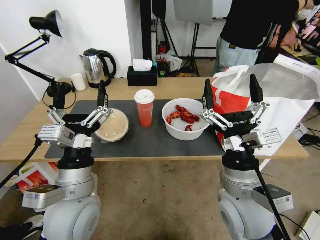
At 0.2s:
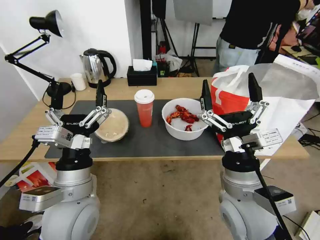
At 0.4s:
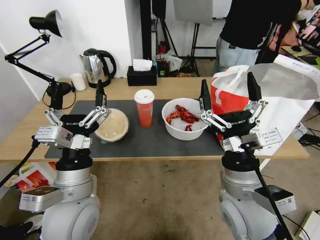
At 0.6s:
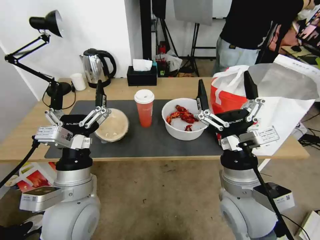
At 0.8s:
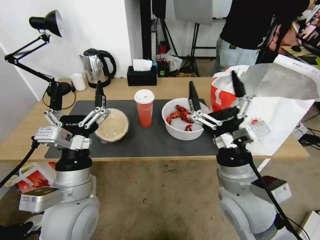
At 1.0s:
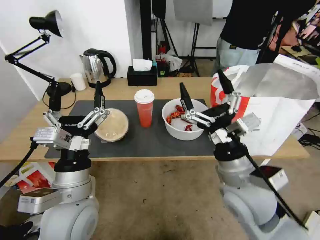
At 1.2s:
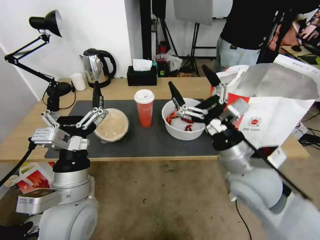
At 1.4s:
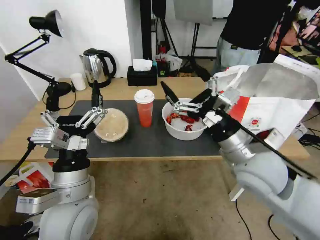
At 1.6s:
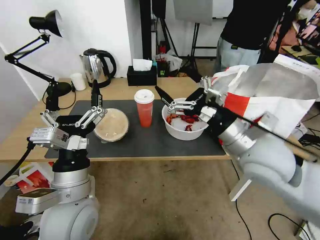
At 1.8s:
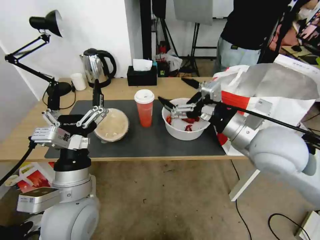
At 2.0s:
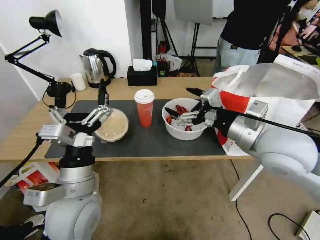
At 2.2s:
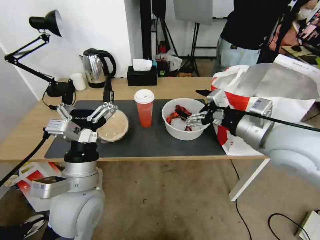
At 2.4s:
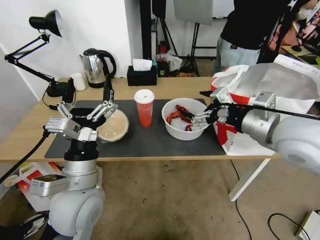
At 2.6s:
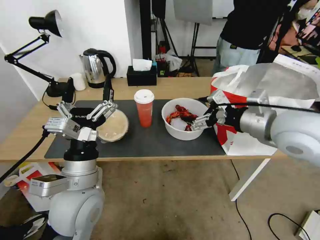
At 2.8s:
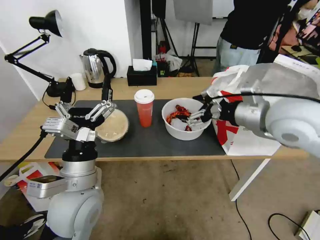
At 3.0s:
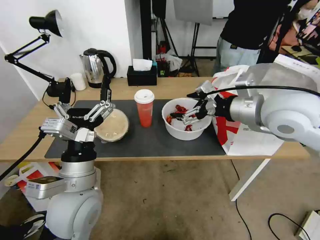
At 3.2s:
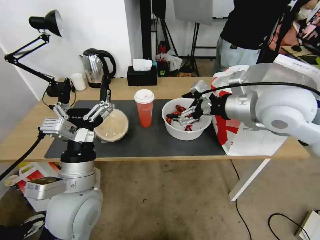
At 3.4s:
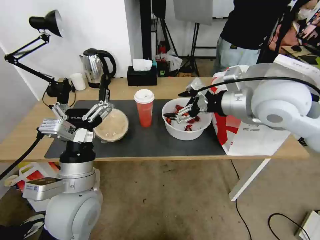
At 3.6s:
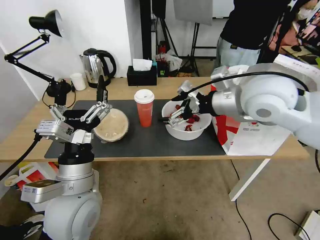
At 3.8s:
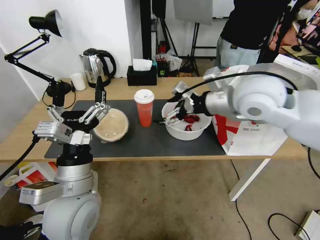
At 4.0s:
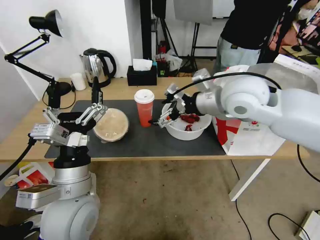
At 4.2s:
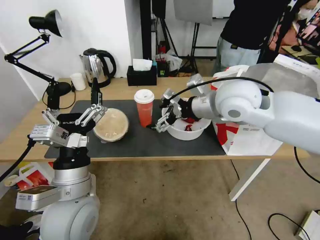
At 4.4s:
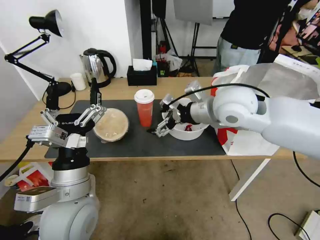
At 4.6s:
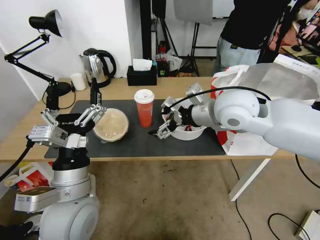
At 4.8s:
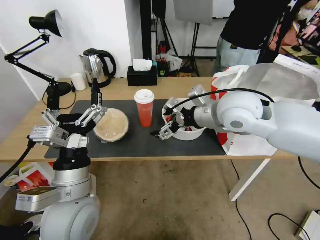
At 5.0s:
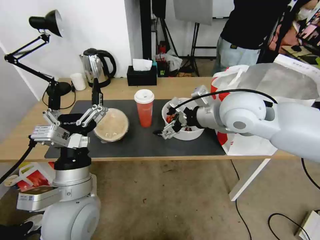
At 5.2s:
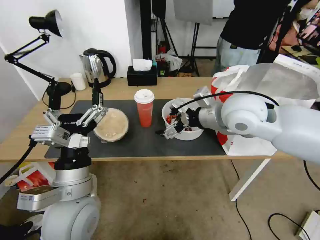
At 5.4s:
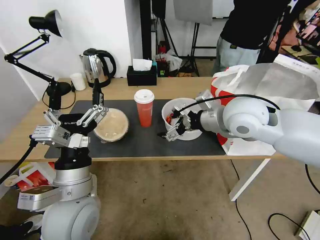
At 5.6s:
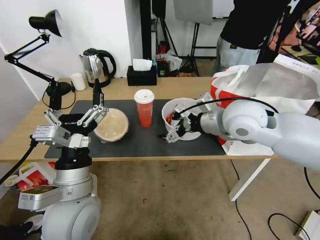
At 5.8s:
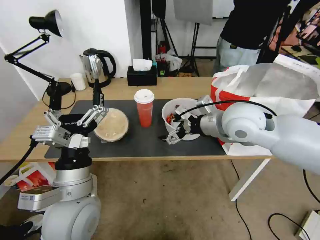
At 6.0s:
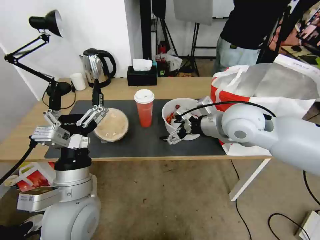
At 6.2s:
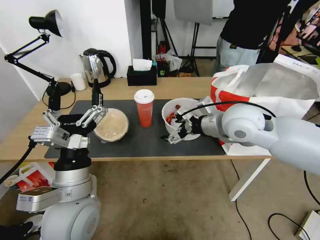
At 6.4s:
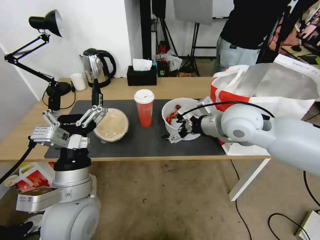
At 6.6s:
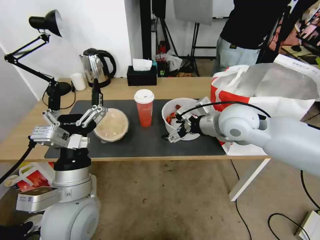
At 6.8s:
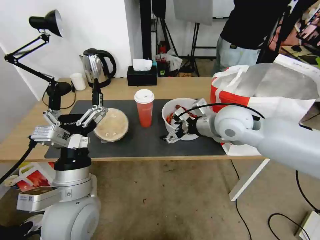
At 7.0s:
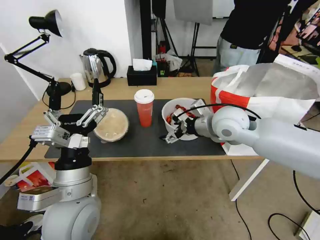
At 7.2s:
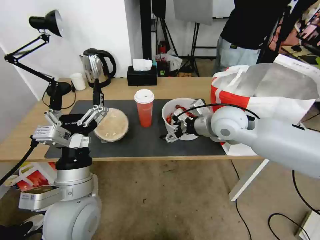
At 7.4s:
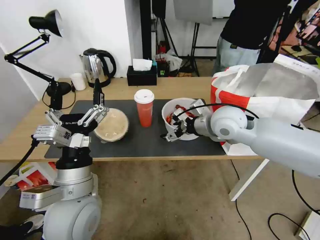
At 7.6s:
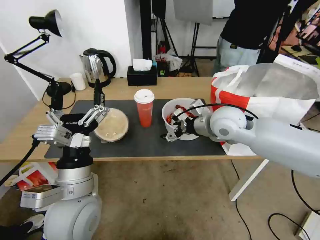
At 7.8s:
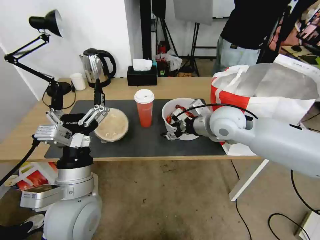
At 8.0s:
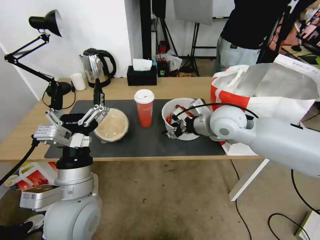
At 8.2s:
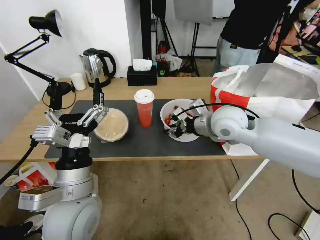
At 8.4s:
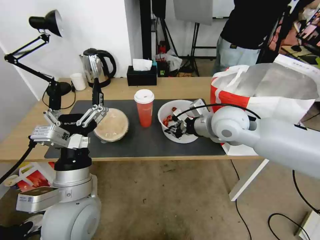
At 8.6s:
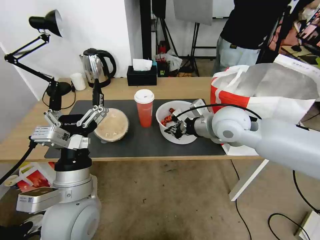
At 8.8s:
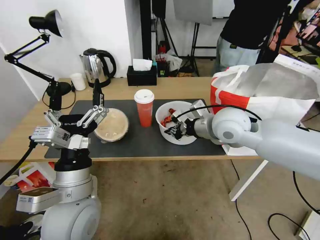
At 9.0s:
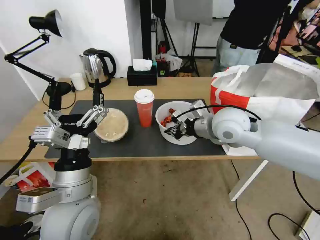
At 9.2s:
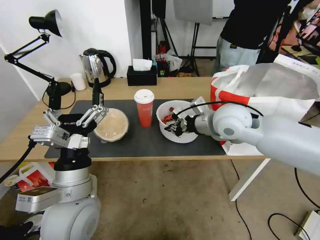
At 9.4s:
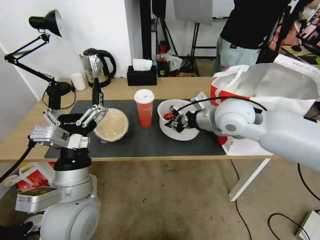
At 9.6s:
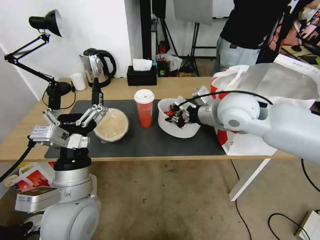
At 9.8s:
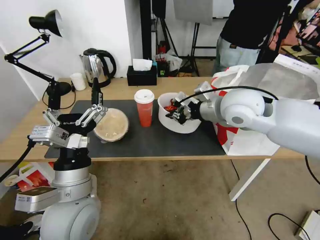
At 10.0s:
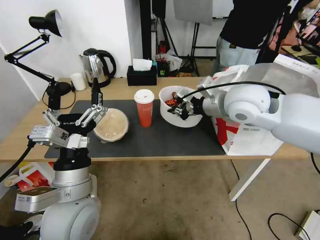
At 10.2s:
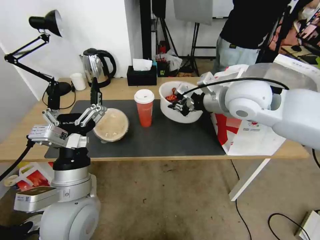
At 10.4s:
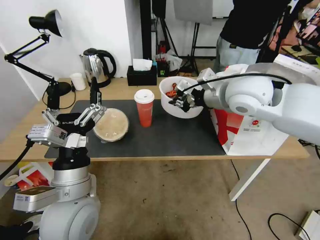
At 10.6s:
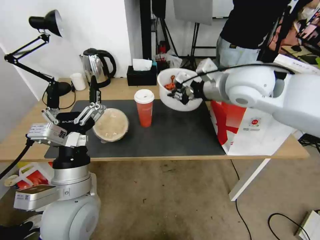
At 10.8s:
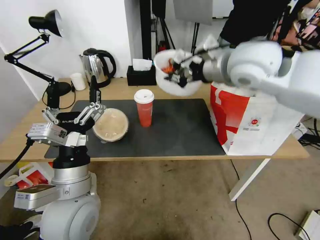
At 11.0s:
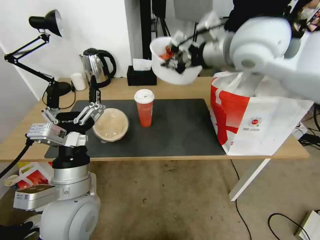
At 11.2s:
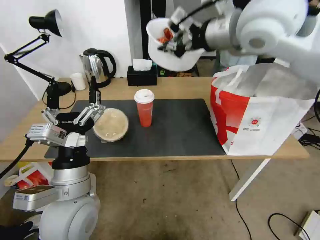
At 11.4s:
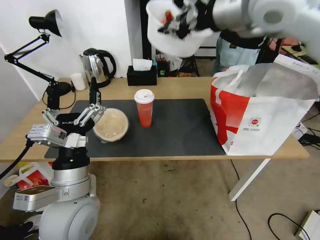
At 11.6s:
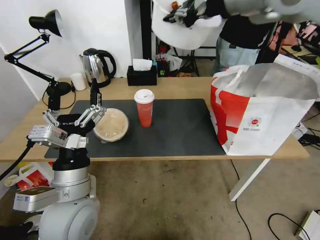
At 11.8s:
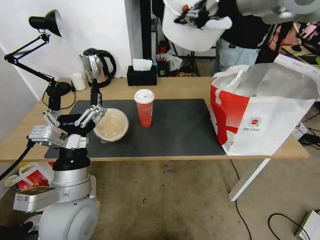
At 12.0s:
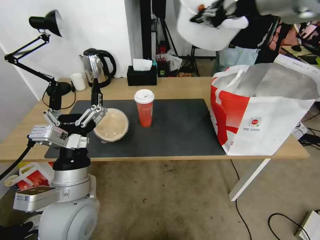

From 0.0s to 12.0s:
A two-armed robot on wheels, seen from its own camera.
Task of the whole recording: Pick up the trash from the table and place it into the takeout bag.
From 1.6s to 3.0s: The right gripper heads upward and forward, covering roughly 10 cm.
From 3.0s to 4.4s: The right gripper goes some 10 cm to the left and forward.
From 4.4s to 6.0s: The right gripper moves approximately 5 cm.
From 6.0s to 7.6s: The right gripper ends up some 5 cm from where it was.
From 7.6s to 9.0s: The right gripper closes its fingers.
From 9.0s to 10.4s: The right gripper shifts approximately 10 cm upward.
From 10.4s to 12.0s: The right gripper goes roughly 20 cm upward.

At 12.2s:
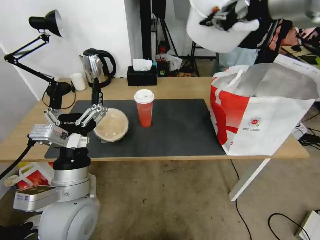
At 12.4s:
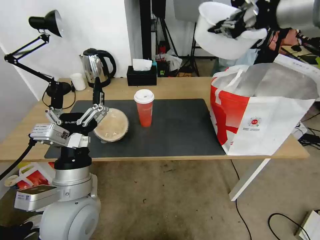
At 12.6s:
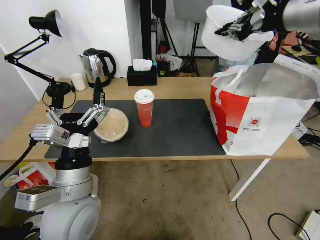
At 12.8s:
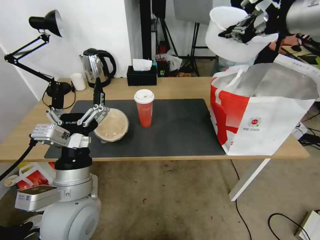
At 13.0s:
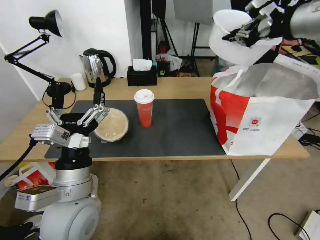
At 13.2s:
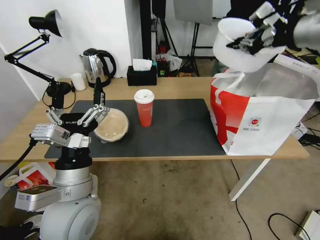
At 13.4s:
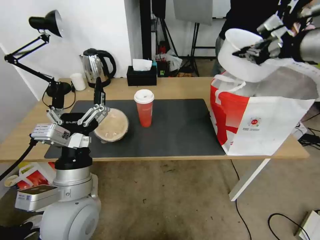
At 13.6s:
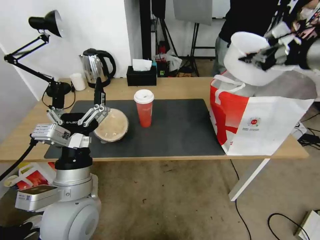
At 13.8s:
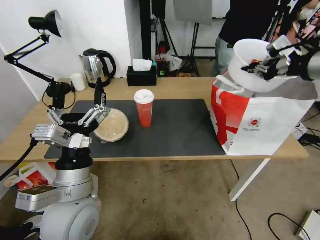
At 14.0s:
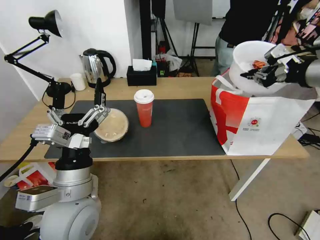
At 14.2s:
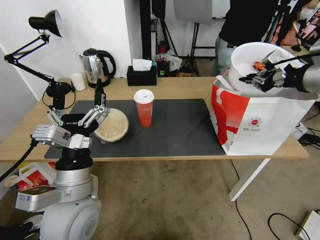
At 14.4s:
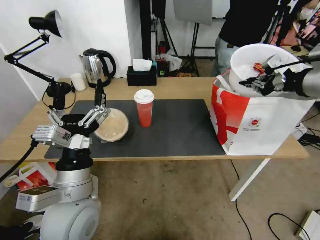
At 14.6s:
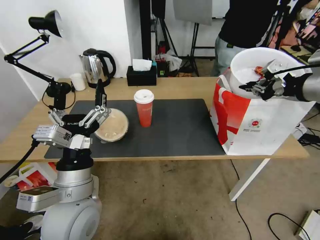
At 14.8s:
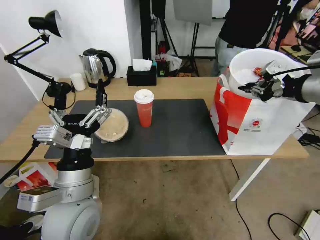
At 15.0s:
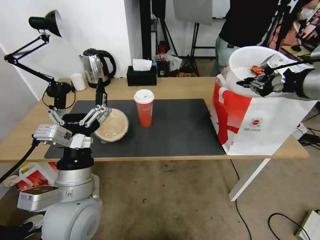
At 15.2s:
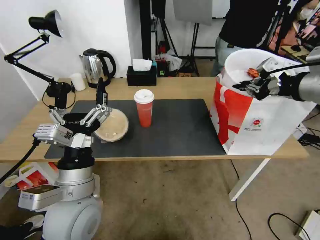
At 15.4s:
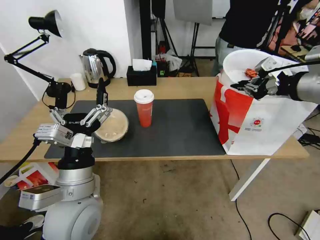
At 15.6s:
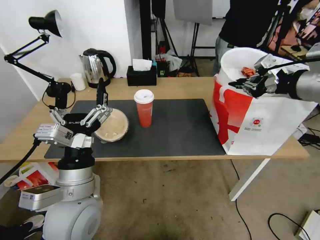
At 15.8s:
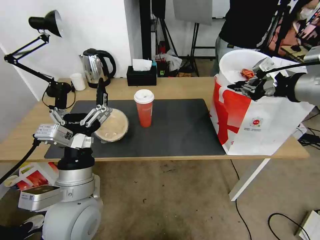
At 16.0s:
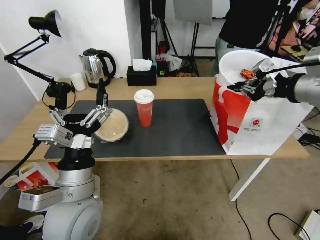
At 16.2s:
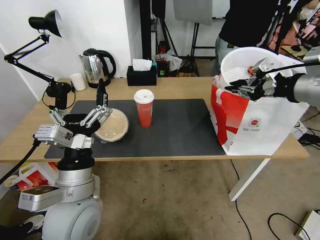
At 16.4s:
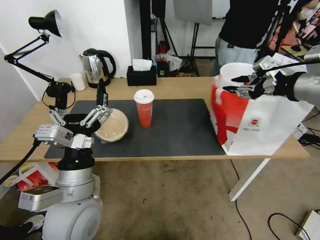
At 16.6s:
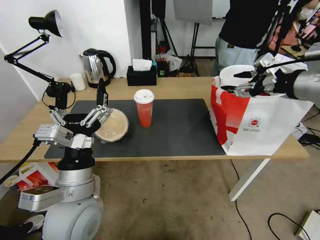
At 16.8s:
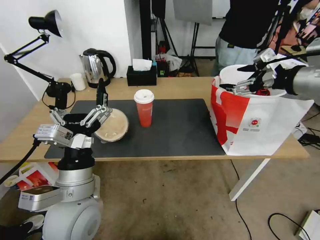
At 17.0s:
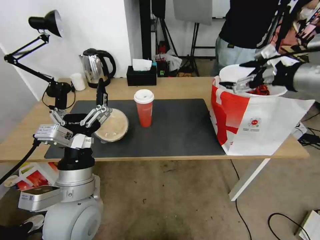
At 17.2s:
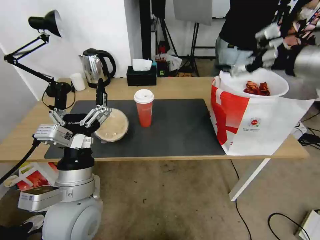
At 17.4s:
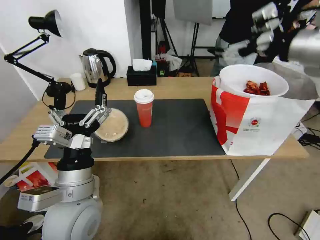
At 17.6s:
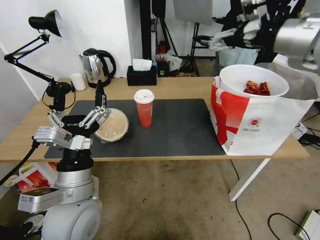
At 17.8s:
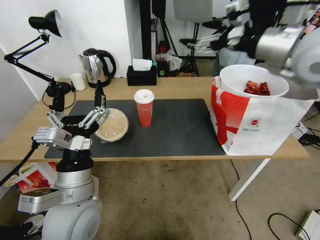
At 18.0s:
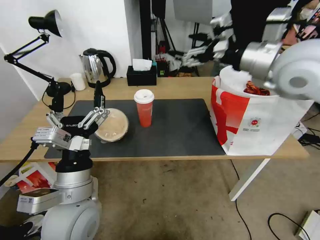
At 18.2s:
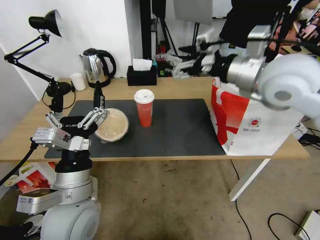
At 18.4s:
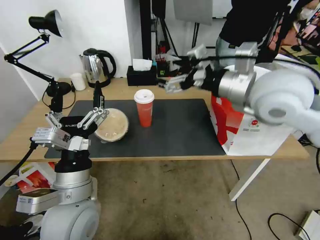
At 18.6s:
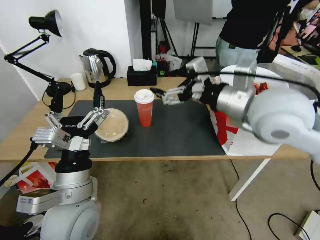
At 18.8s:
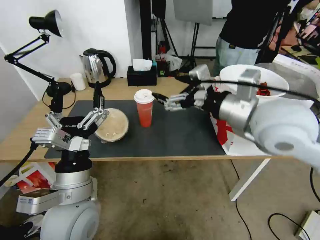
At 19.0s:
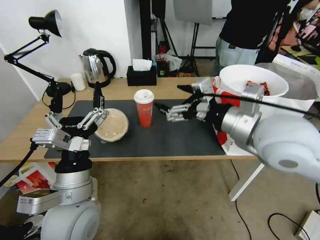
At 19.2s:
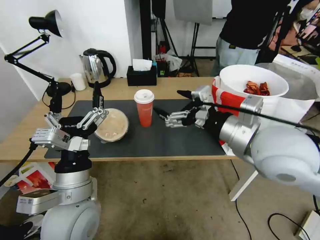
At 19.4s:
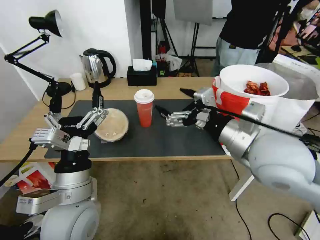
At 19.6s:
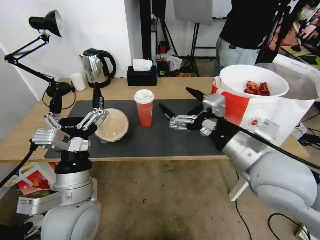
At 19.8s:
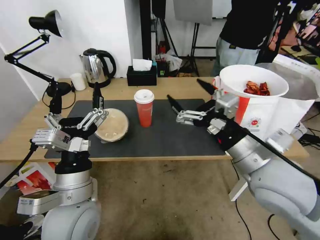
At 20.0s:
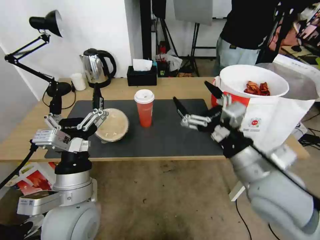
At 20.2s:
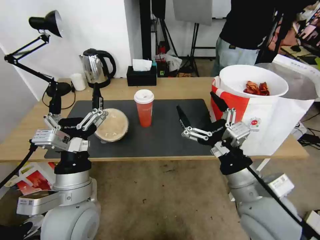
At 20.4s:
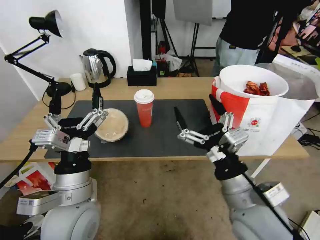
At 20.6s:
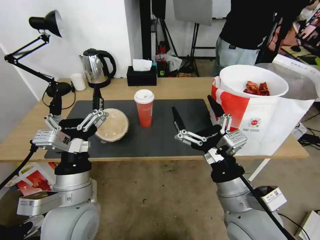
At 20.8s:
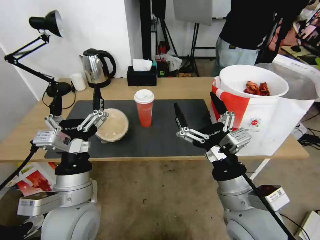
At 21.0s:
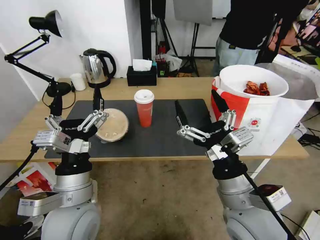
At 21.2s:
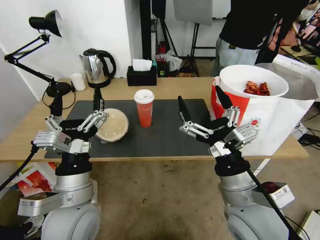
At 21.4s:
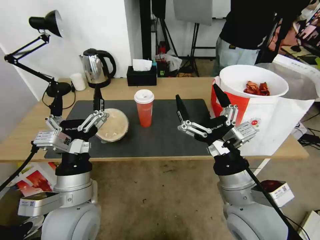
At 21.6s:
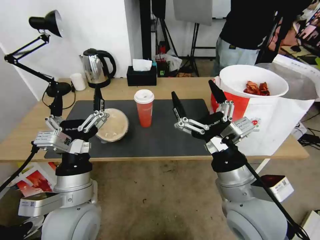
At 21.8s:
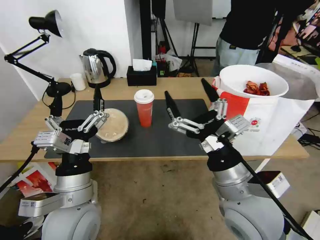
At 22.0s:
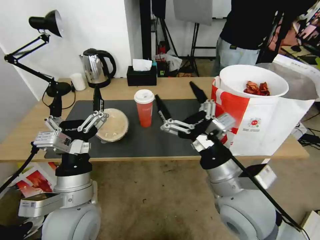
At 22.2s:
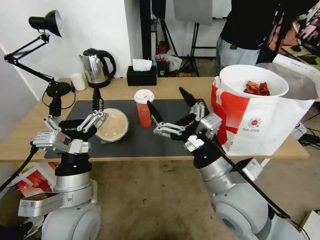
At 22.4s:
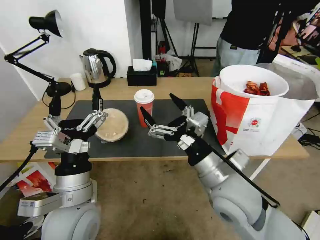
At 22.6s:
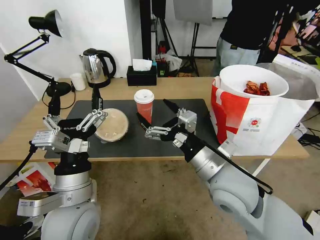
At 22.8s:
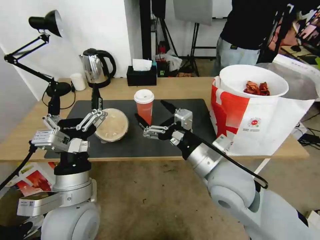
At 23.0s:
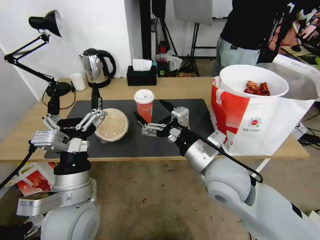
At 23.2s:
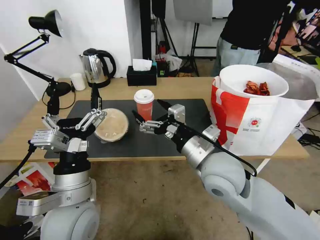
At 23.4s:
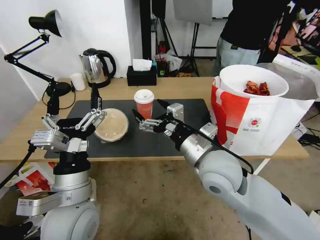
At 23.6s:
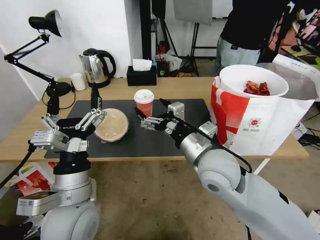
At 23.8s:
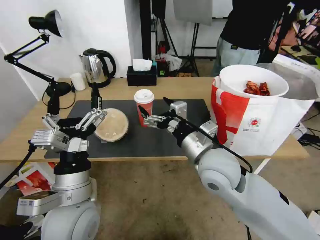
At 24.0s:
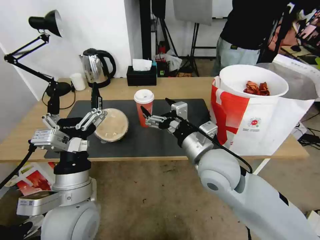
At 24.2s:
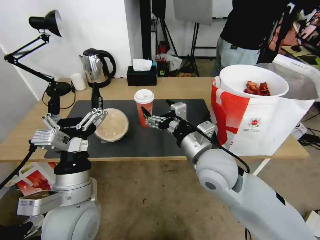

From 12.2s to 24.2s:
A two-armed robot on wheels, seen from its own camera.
Task of the whole recording: Pick up the trash from the table and place it into the takeout bag.
From 12.2s to 13.8s: The right gripper goes some 15 cm to the right and downward.
From 13.8s to 15.2s: The grippers stay close to where they were, moving slightly.
From 15.2s to 16.6s: The right gripper opens its fingers.
From 16.6s to 18.2s: The right gripper moves to the left, approximately 10 cm, and opens.
From 18.2s to 19.8s: The right gripper moves backward and downward, about 20 cm.
From 19.8s to 21.2s: The right gripper shifts approximately 10 cm downward and backward.
From 21.2s to 22.6s: The right gripper shifts some 5 cm forward.
From 22.6s to 24.2s: The right gripper goes approximately 5 cm forward.
